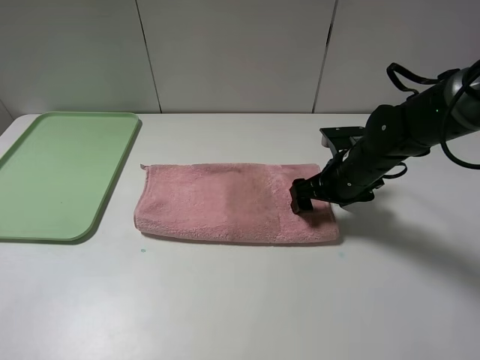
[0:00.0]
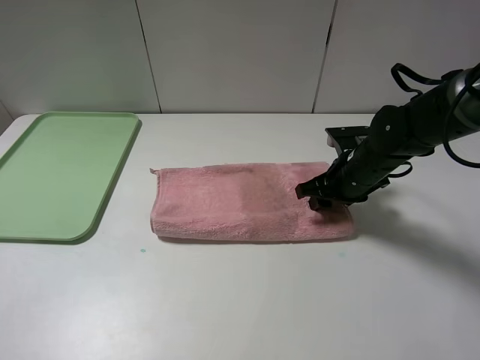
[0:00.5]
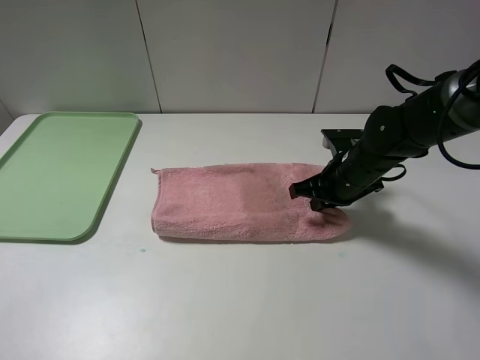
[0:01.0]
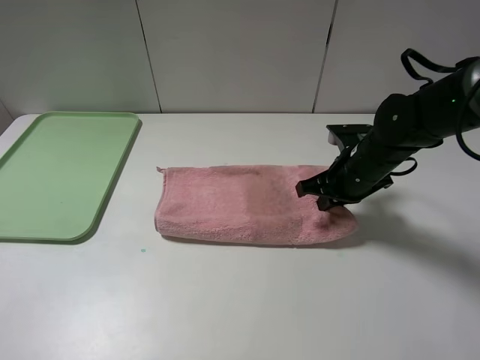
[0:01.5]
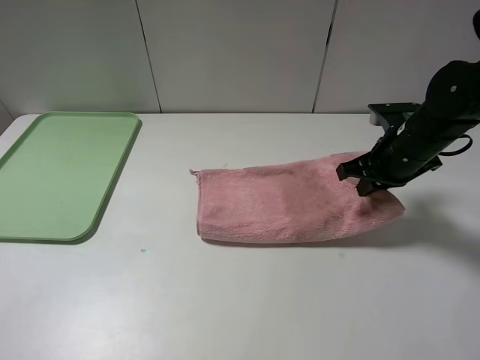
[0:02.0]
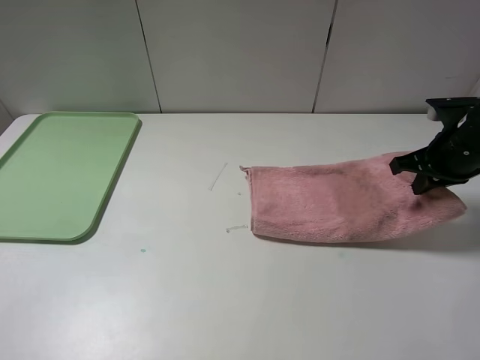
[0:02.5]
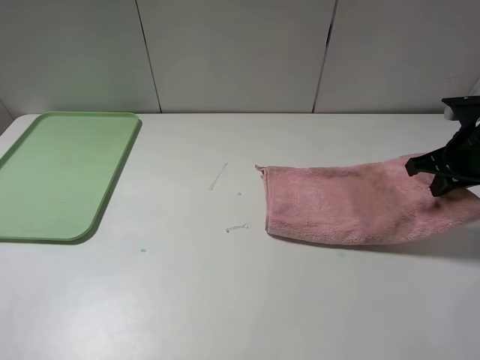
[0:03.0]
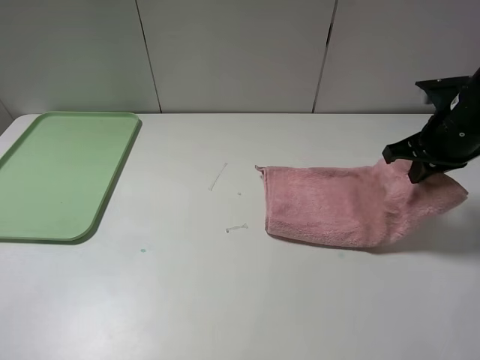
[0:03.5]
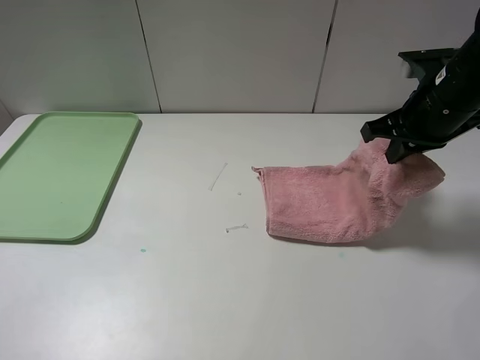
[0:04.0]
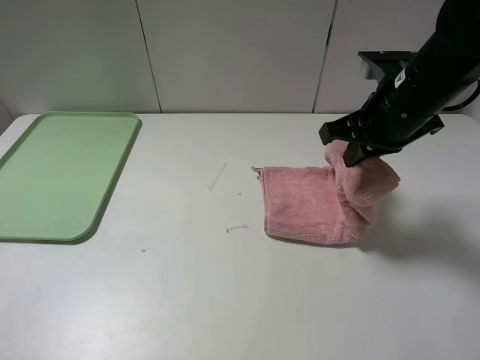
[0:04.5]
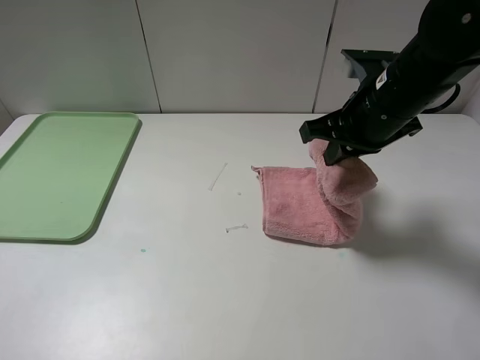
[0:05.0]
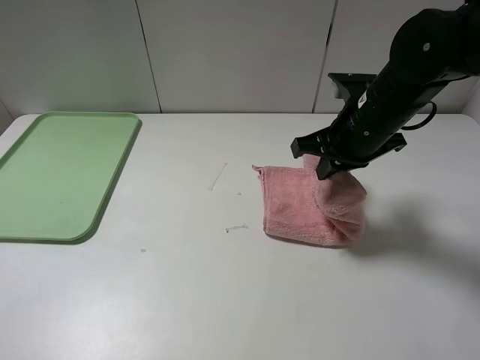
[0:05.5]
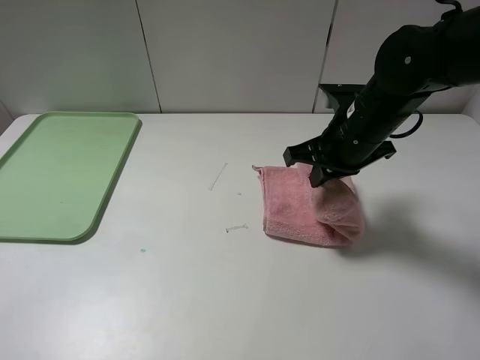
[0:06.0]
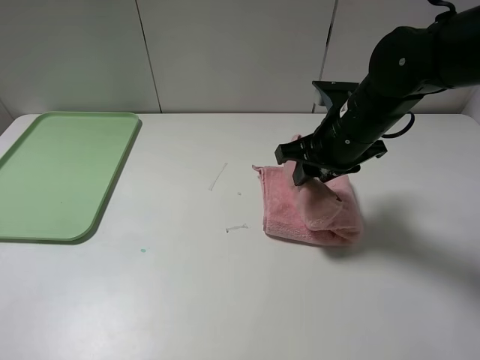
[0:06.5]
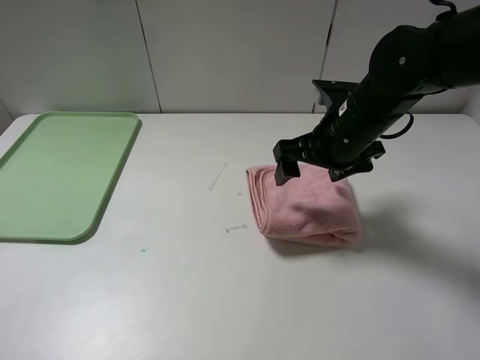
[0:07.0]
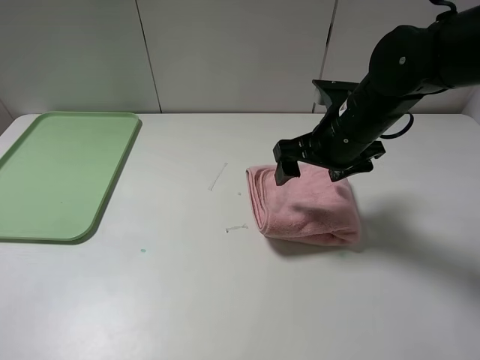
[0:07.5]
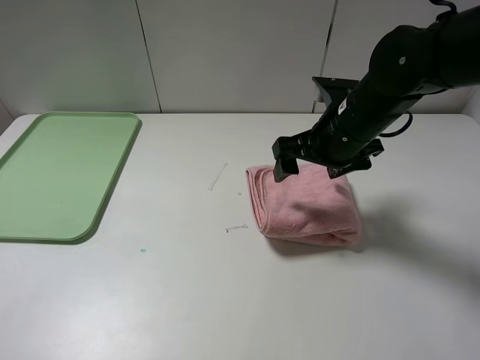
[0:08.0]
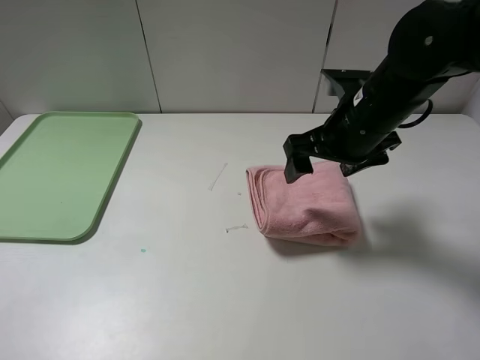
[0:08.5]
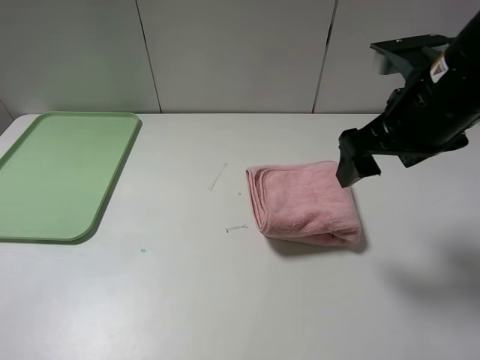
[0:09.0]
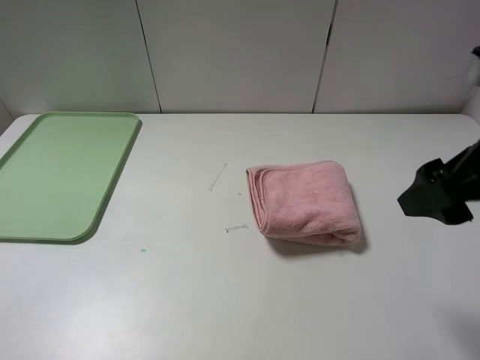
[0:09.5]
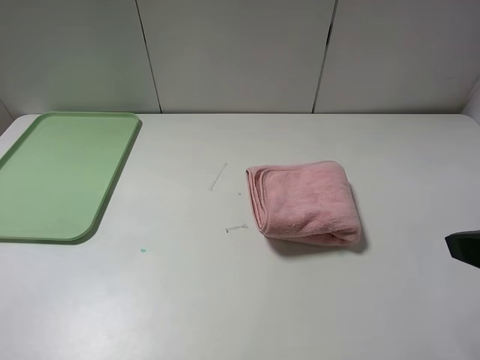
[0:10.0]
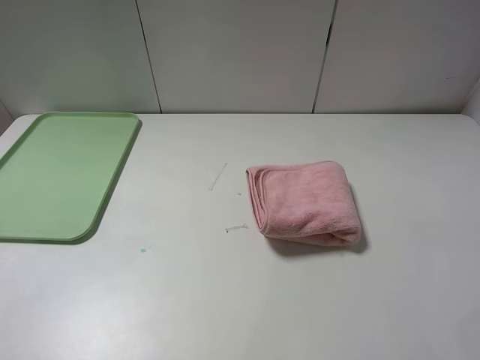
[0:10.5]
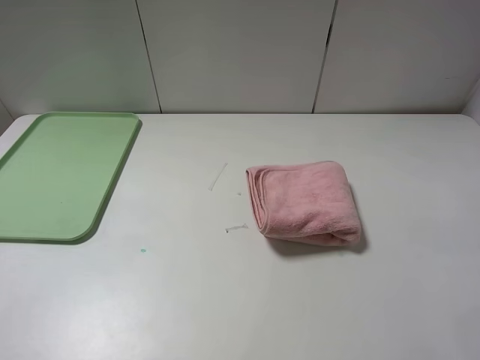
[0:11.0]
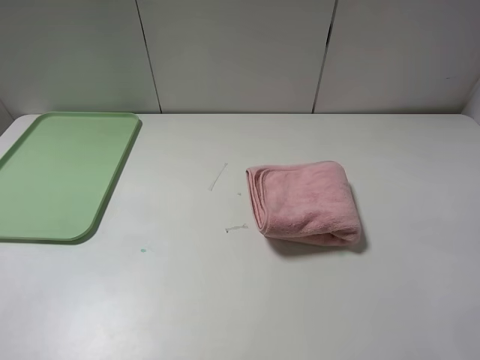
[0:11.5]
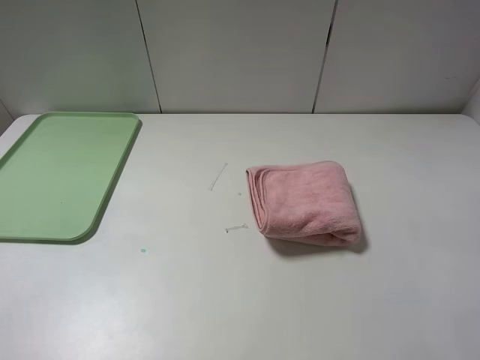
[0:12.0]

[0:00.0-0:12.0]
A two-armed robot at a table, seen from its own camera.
Step, 0:00.0 to 0:06.5: Fold the pink towel from right to left with right gripper.
0:00.0 to 0:02.0: The right gripper moves to the right and upward, approximately 10 cm, and closes up.
0:02.0 to 0:04.0: The right gripper goes about 10 cm upward, and moves some 10 cm to the right and comes back.
0:04.0 to 0:06.0: The right gripper is displaced to the left by some 10 cm.
0:06.0 to 0:08.0: The right gripper opens.
0:08.0 to 0:10.0: The right gripper shifts about 25 cm backward, to the right and upward.

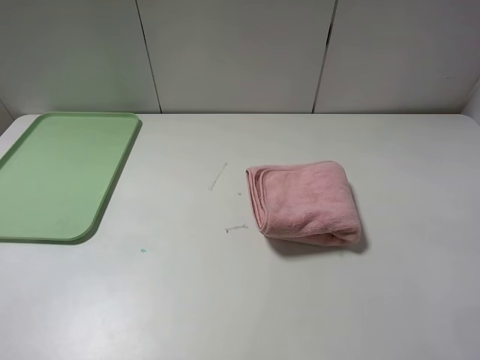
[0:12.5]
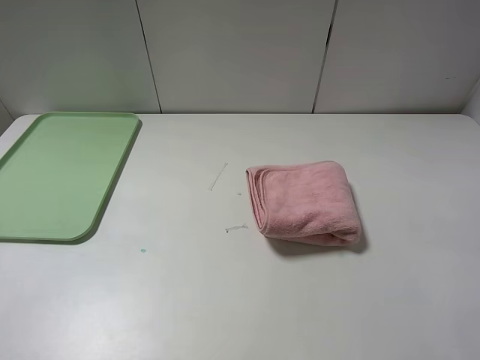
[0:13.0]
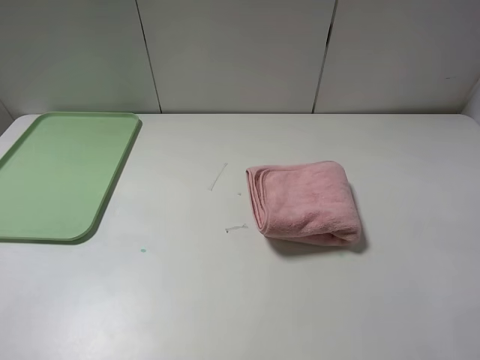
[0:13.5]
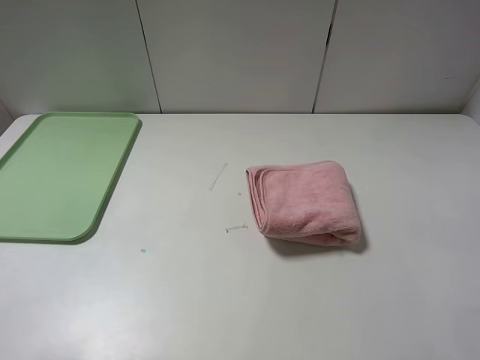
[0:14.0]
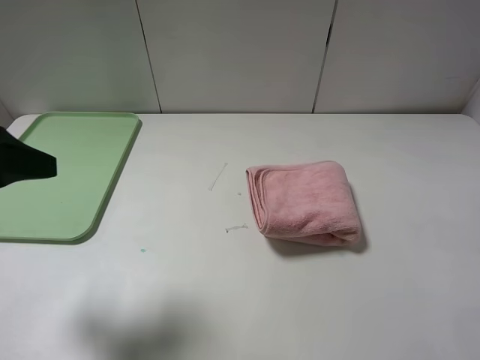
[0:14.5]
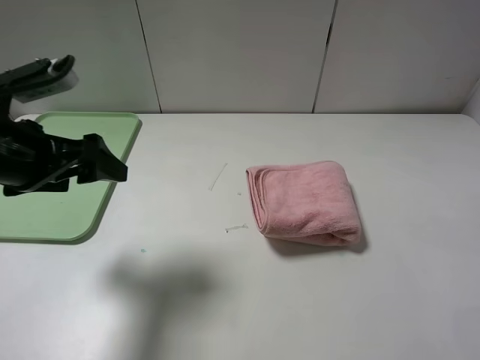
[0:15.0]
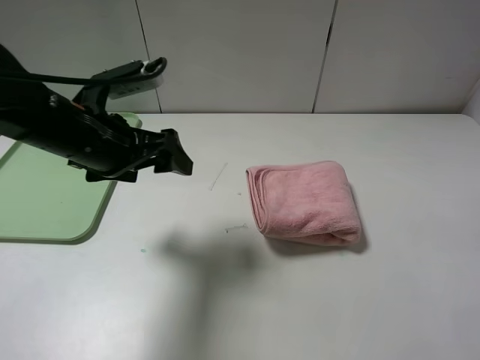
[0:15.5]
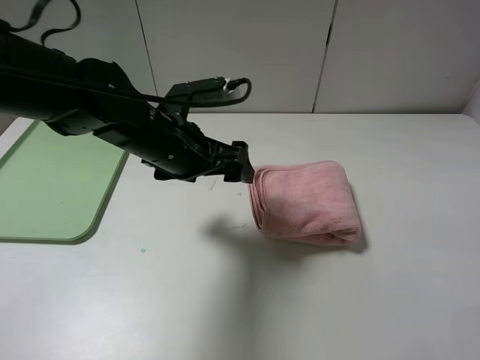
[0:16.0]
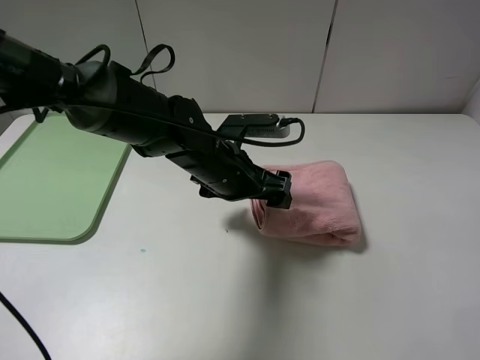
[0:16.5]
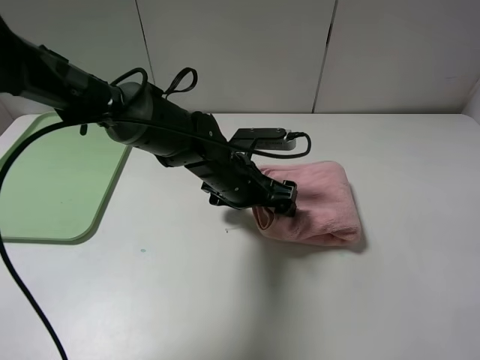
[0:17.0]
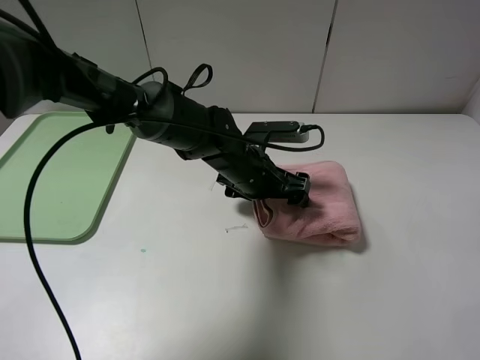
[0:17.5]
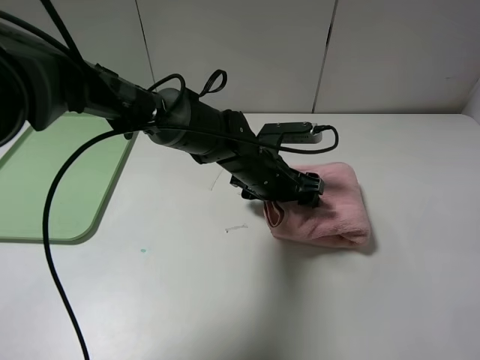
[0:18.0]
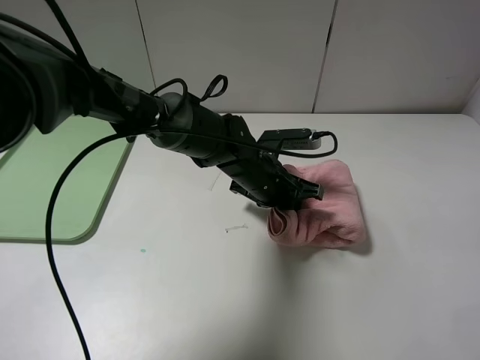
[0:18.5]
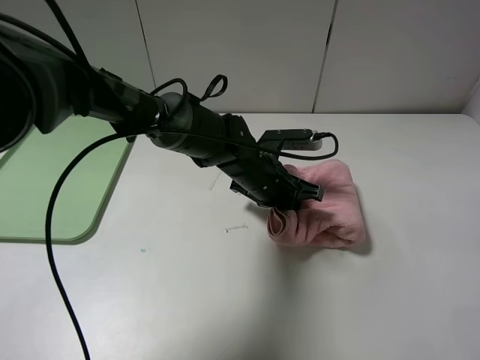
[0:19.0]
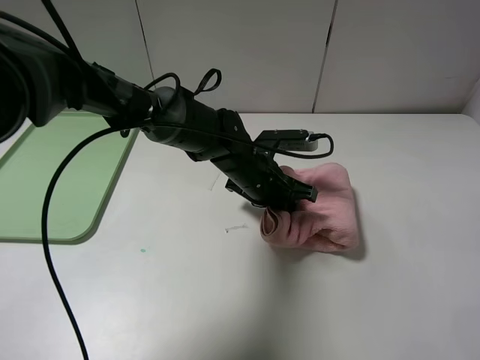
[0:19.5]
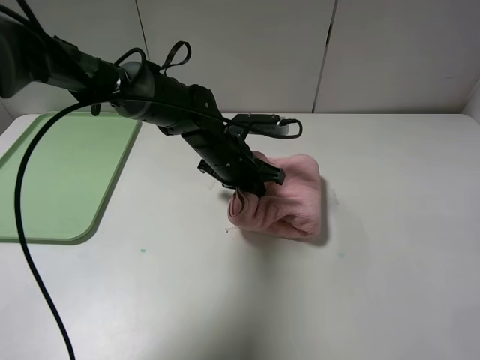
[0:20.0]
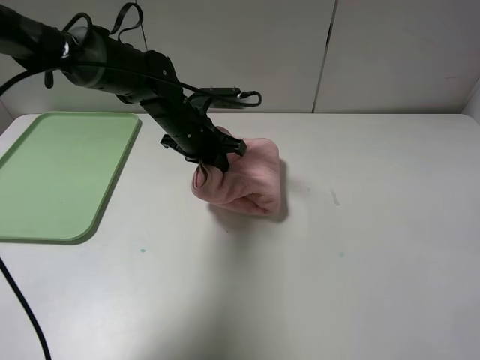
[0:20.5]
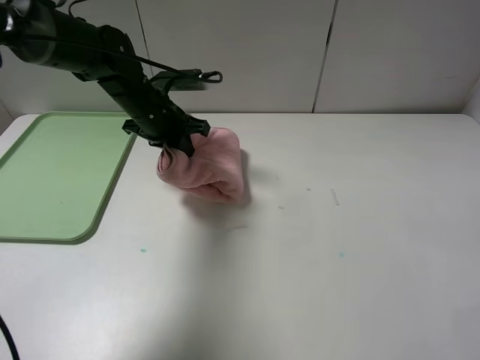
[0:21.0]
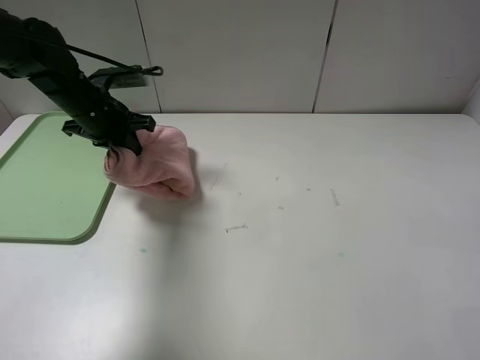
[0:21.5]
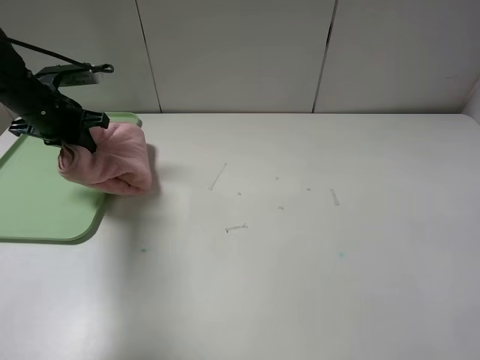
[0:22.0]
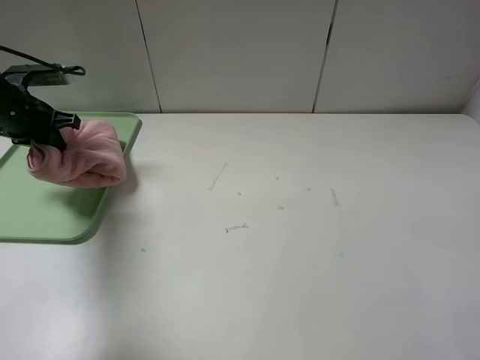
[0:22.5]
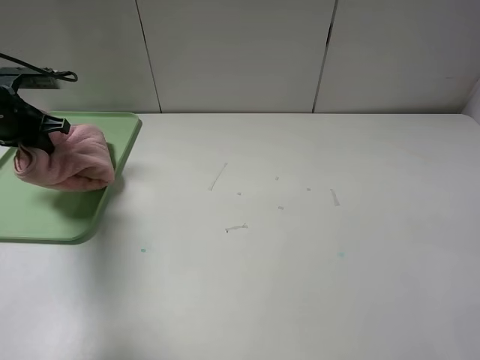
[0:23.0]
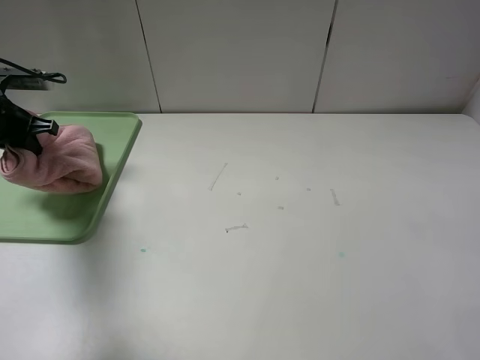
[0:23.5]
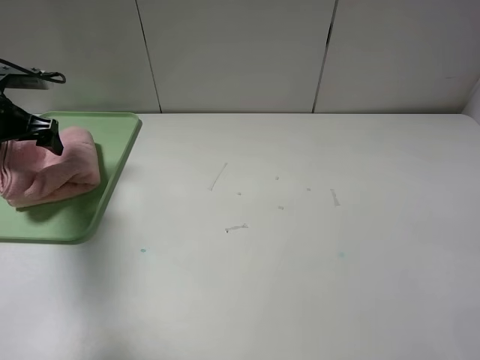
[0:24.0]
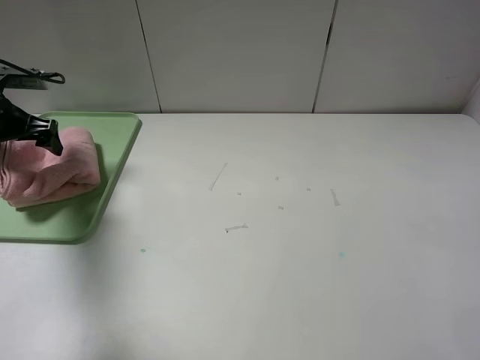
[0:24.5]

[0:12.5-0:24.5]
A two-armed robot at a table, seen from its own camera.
0:12.5 to 0:14.5: The left gripper travels forward by about 15 cm.
0:14.5 to 0:16.5: The left gripper travels to the right, forward and downward by some 35 cm.
0:16.5 to 0:18.5: The left gripper heads to the right, covering about 5 cm, and closes its fingers.
0:18.5 to 0:20.5: The left gripper goes some 15 cm to the left, forward and upward.
0:20.5 to 0:22.5: The left gripper shifts about 25 cm to the left.
0:22.5 to 0:24.5: The left gripper opens its fingers.

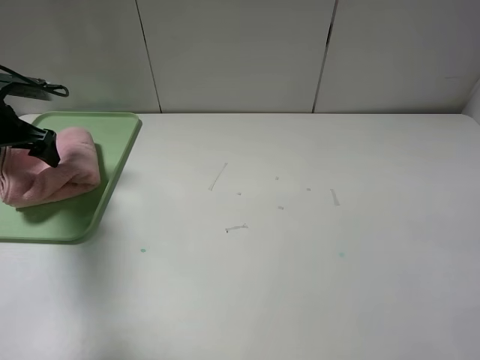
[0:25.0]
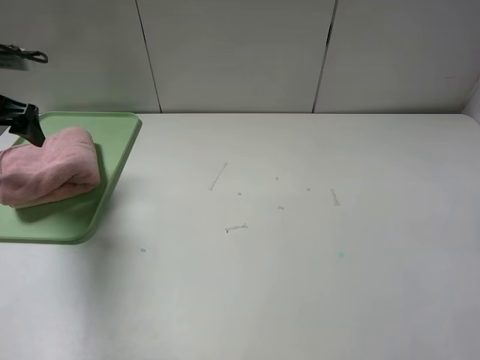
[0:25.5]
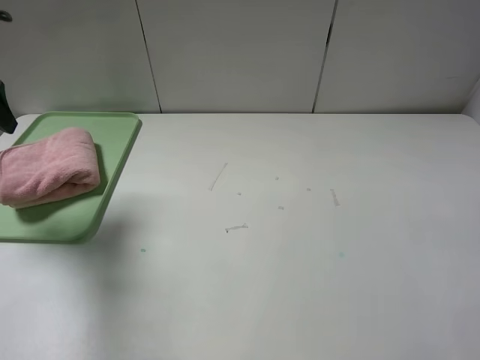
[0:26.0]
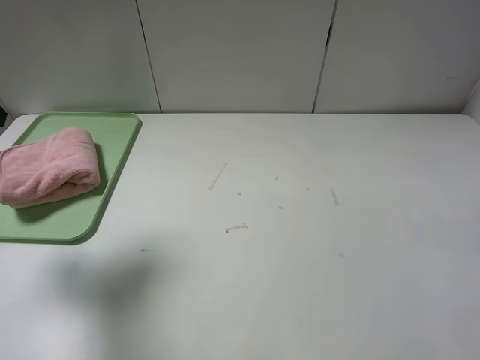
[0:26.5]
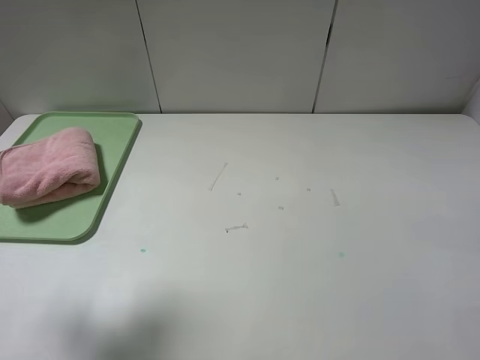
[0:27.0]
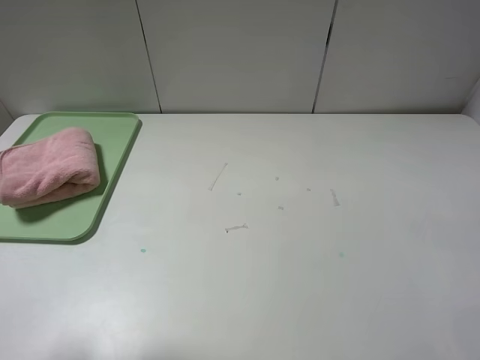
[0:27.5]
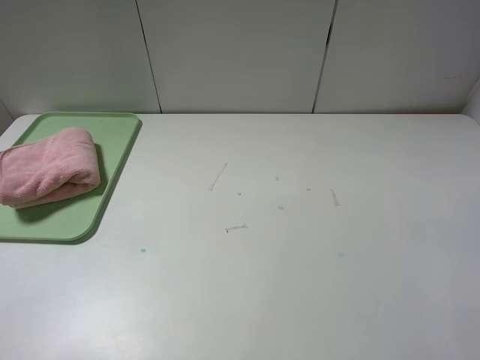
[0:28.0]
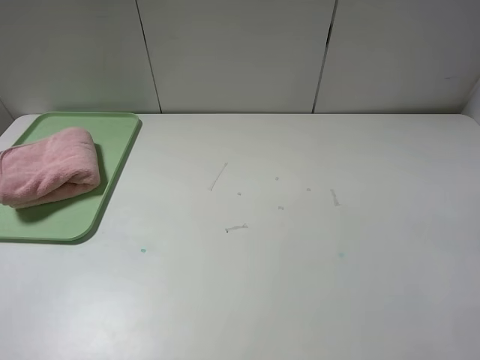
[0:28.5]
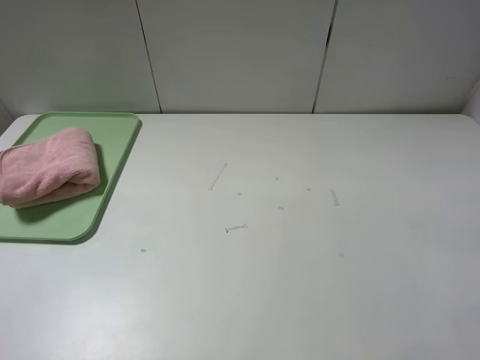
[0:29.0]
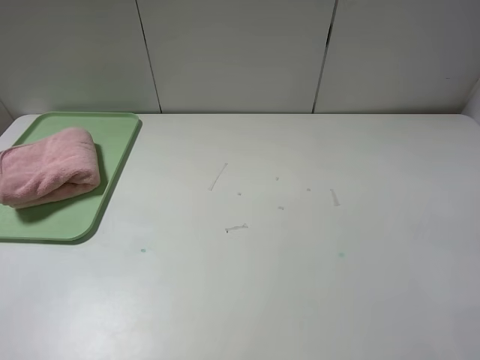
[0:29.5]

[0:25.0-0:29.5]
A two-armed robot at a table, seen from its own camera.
0:25.0 to 0:27.0: The left gripper shifts roughly 25 cm backward and upward.
0:27.0 to 0:29.5: The left gripper heads backward, covering roughly 15 cm.
